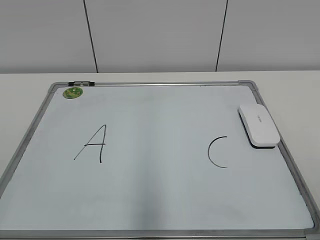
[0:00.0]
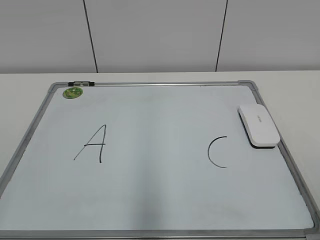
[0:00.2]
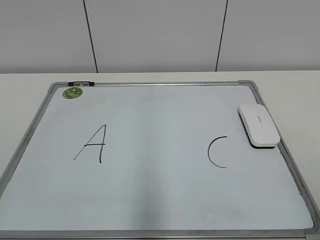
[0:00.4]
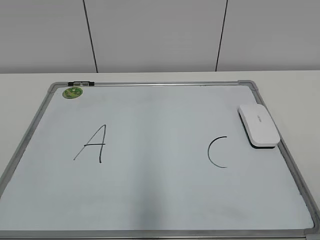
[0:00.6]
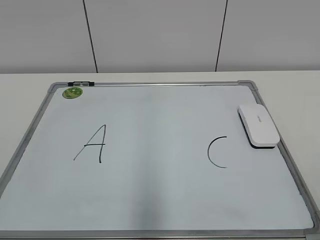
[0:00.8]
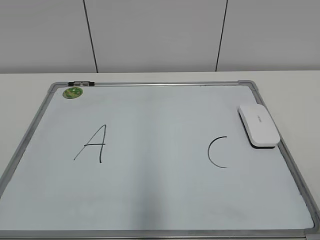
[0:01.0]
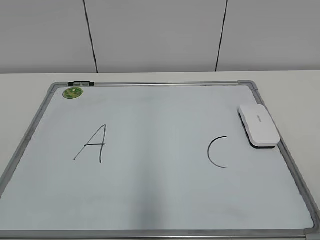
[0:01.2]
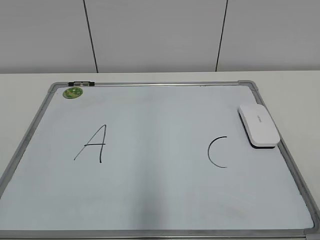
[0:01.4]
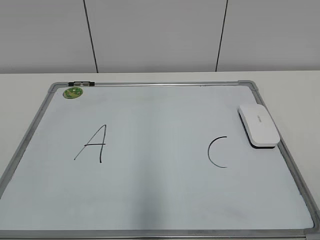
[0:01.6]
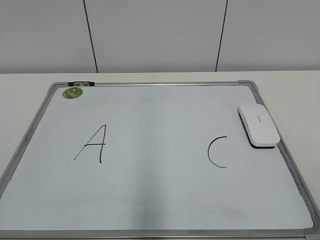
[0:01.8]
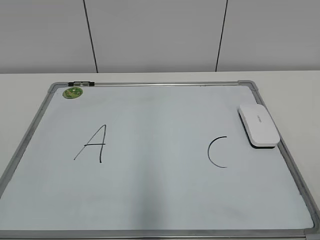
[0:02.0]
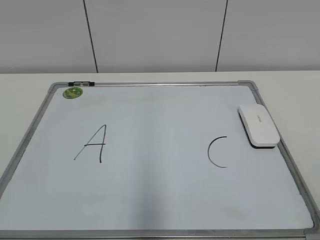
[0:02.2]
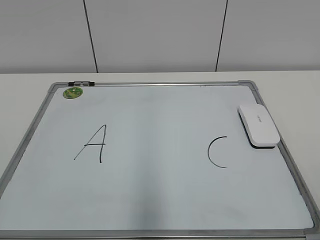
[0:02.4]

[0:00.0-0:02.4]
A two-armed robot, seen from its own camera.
Task of the whole recording: pick up the eraser on the blackboard and erase the letter "B".
0:01.2 to 0:02.4: The two grippers keep their place.

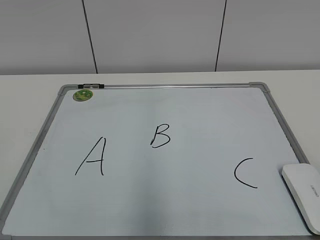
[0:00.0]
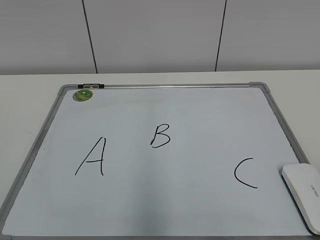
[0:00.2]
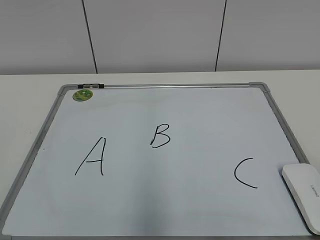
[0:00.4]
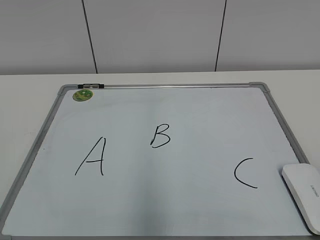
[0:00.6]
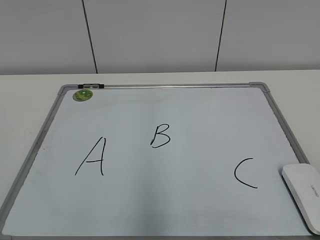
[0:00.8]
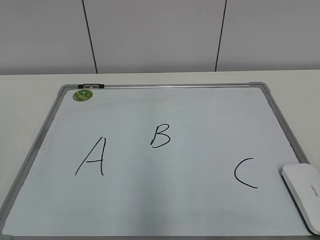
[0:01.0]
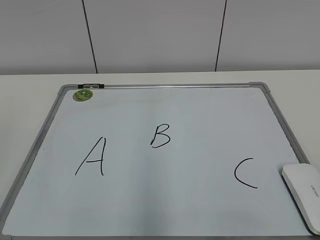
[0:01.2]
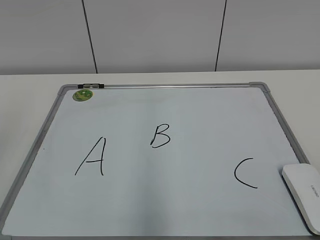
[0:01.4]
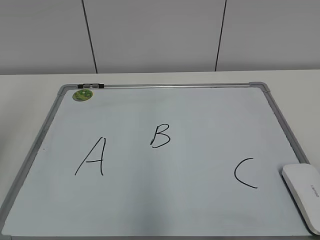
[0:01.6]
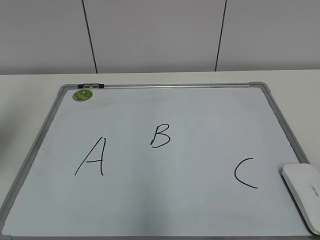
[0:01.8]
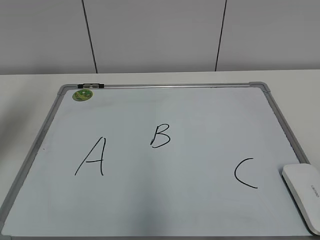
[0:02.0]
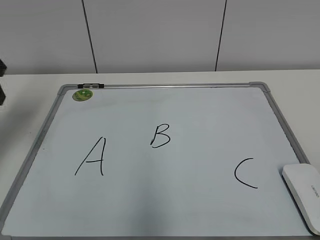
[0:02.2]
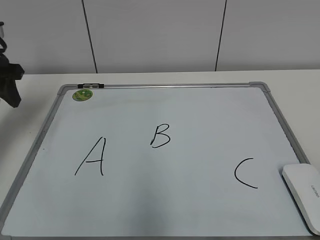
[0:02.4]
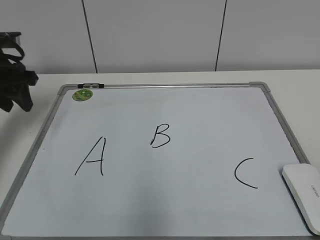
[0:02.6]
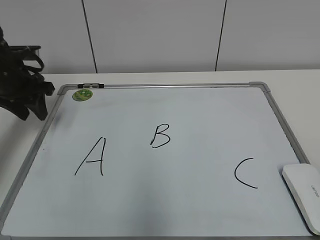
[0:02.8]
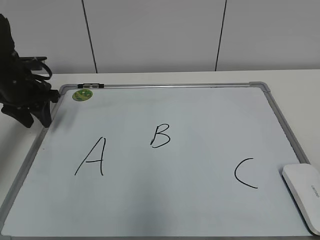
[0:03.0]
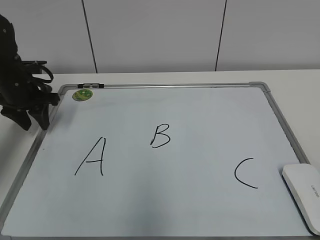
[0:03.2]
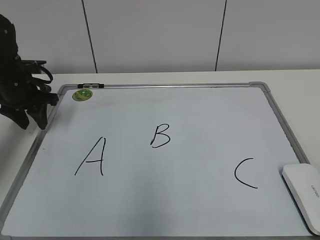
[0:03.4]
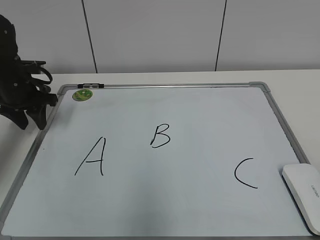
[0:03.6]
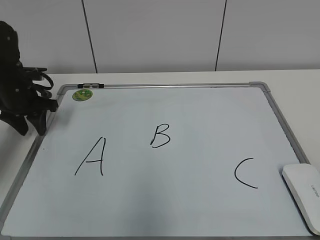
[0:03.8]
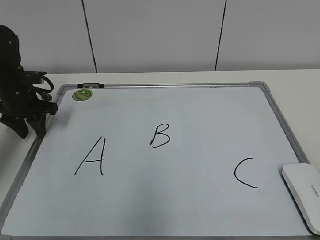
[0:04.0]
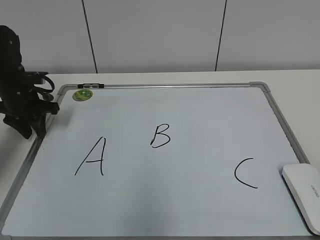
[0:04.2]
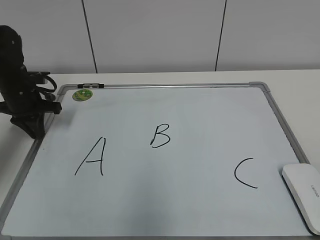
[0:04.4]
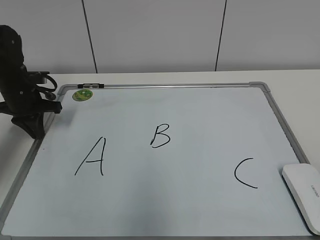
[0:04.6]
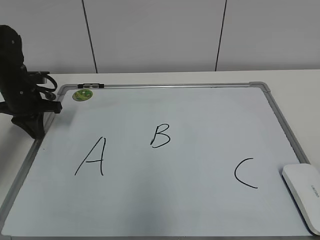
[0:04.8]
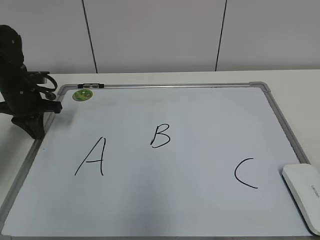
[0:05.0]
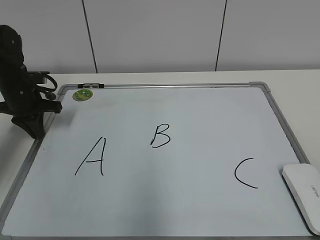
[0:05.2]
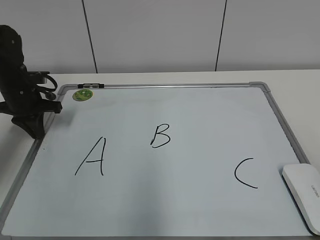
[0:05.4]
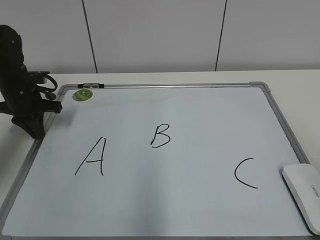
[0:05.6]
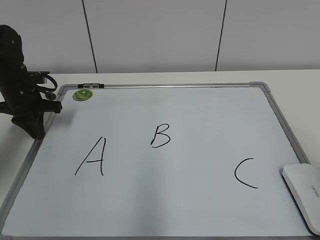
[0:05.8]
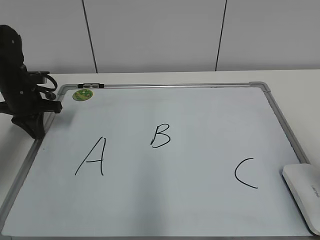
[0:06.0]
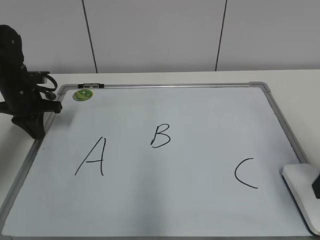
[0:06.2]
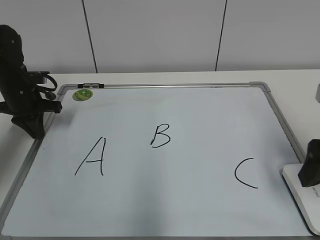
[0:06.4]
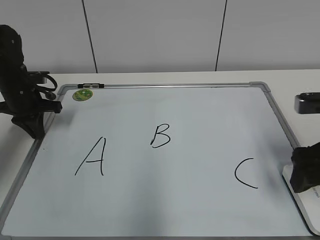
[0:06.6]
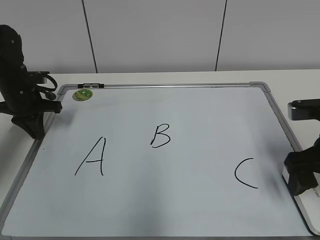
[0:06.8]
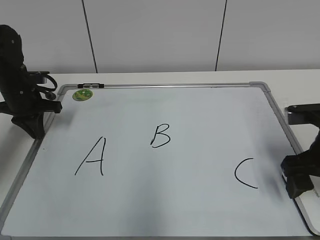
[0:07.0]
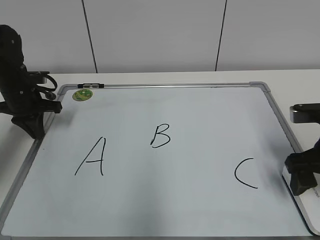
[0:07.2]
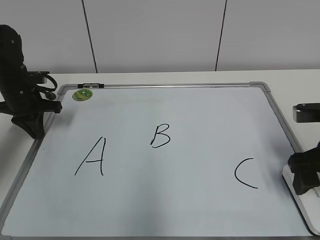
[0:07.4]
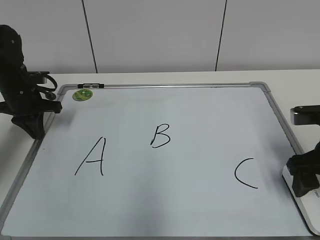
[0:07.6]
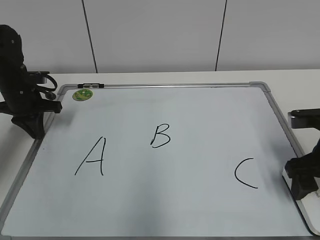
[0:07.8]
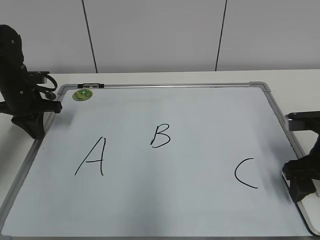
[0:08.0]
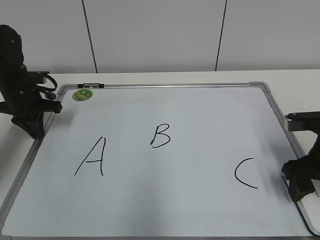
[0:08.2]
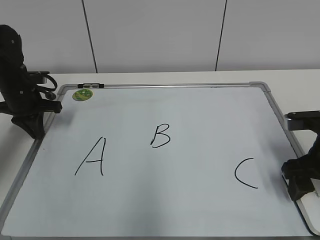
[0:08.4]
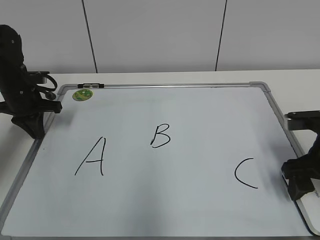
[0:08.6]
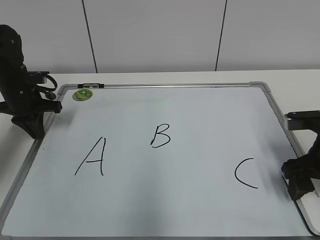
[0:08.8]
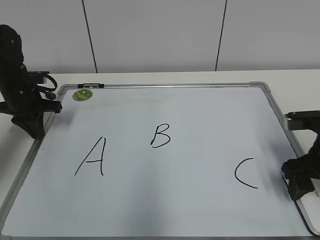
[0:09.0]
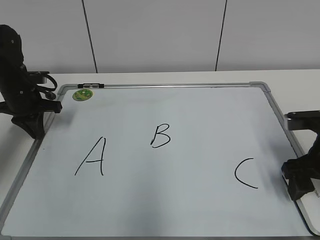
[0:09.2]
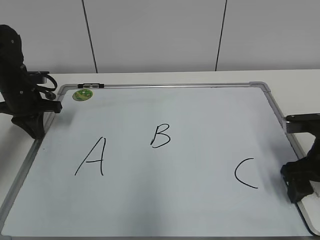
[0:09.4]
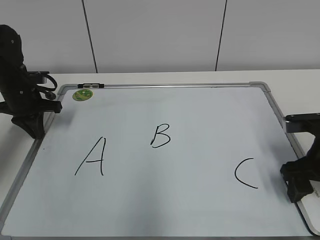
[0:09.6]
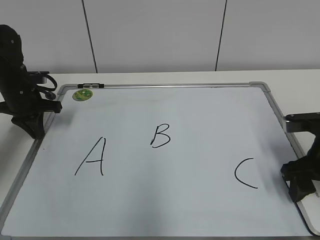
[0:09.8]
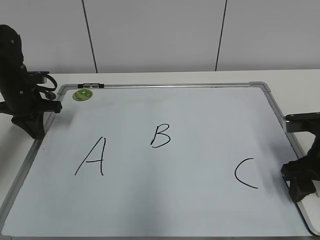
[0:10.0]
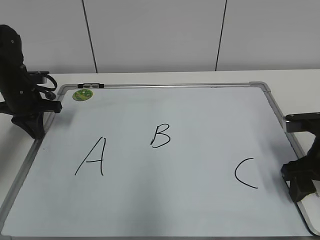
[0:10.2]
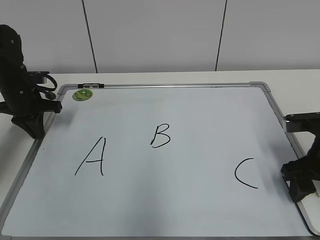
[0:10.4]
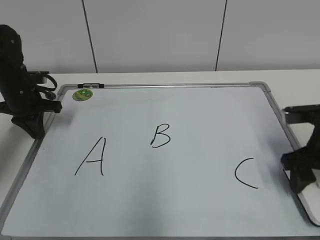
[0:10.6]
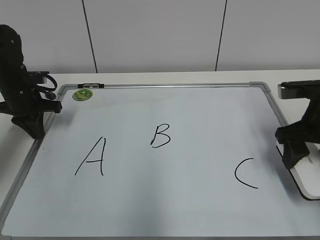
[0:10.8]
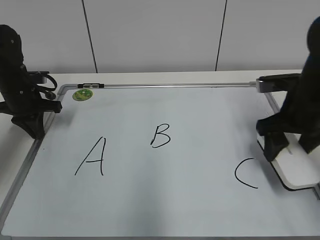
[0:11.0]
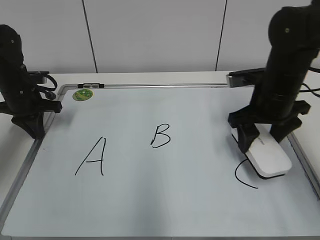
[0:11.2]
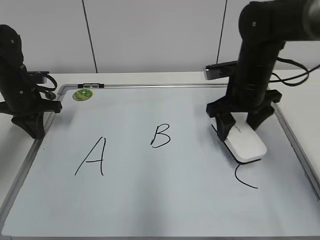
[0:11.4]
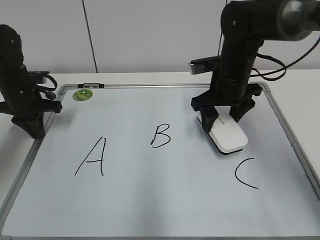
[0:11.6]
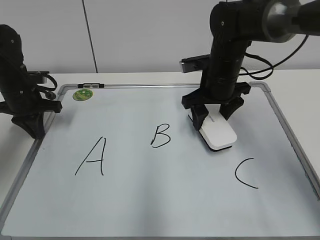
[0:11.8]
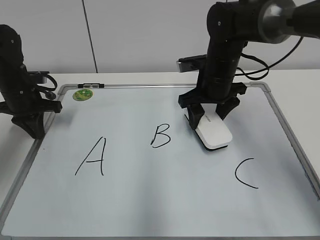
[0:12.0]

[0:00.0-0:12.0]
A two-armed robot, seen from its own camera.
Task of the whole recording: pick up the eraser on the blackboard and erase the letter "B".
Step, 0:00.0 to 0:04.4: Hold the drawing board steady with your left hand.
Step, 0:04.6 to 0:10.0: Grab the eraser with your right hand.
0:01.6 to 0:03.0: The left gripper moves forward and downward, approximately 30 cm.
0:03.0 to 0:04.4: The left gripper closes.
0:04.4 to 0:06.0: The right gripper heads forward, covering some 15 cm, and opens.
0:06.0 to 0:07.6: The right gripper travels forward and downward by about 15 cm.
0:07.6 to 0:09.0: The grippers move only a little.
0:09.0 to 0:10.4: Both grippers stay put.
0:10.4 to 0:12.0: The right gripper moves forward and to the left, some 20 cm.

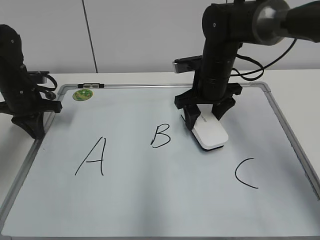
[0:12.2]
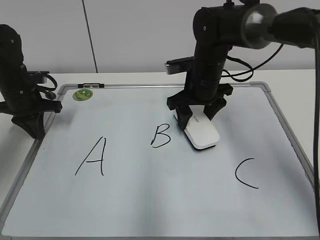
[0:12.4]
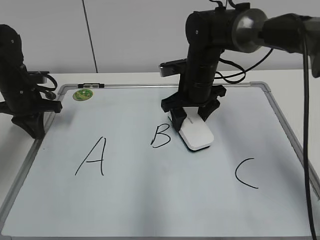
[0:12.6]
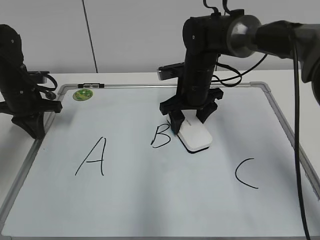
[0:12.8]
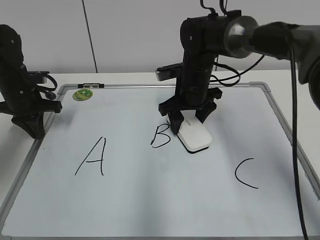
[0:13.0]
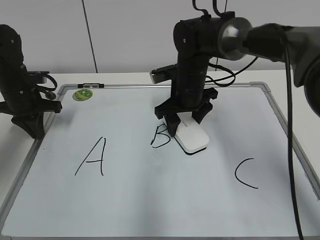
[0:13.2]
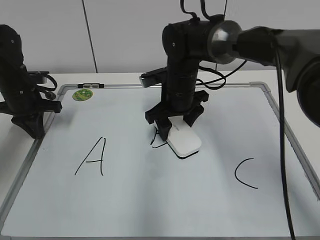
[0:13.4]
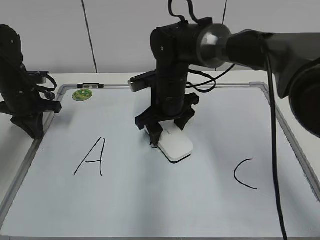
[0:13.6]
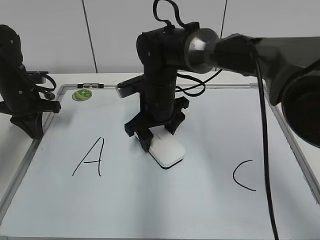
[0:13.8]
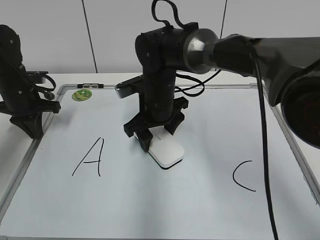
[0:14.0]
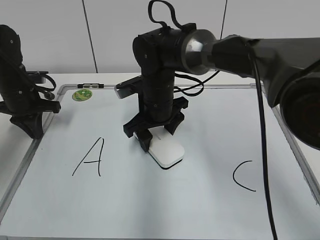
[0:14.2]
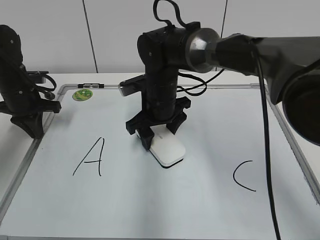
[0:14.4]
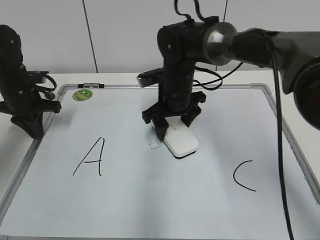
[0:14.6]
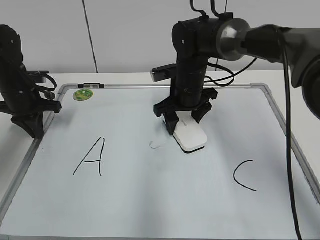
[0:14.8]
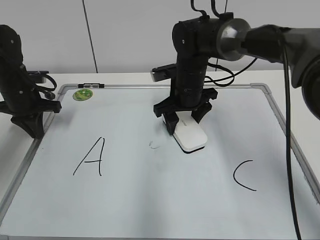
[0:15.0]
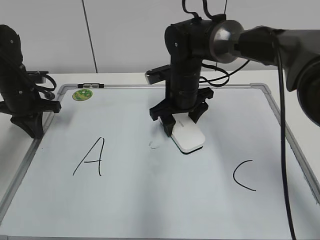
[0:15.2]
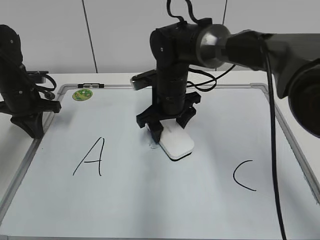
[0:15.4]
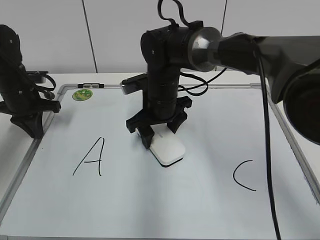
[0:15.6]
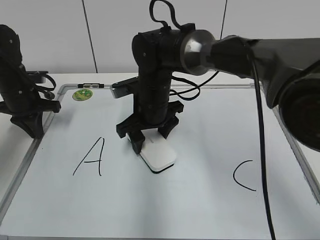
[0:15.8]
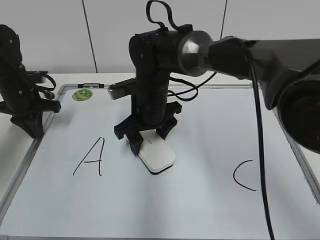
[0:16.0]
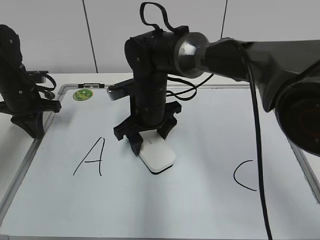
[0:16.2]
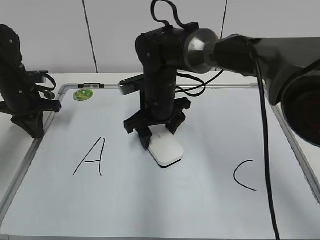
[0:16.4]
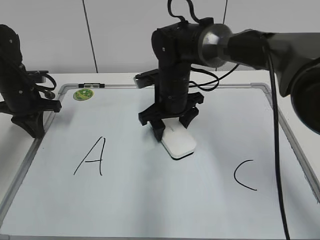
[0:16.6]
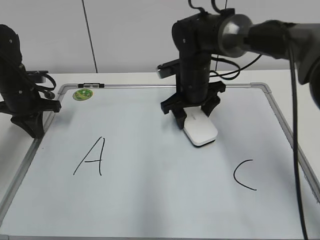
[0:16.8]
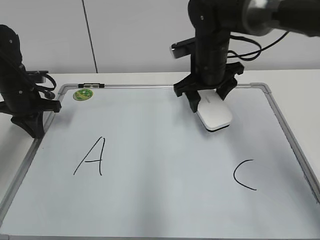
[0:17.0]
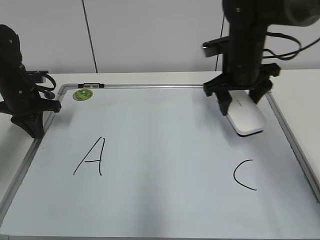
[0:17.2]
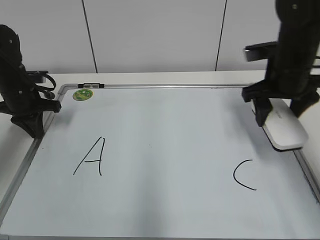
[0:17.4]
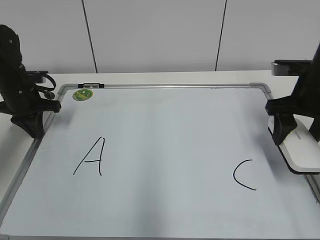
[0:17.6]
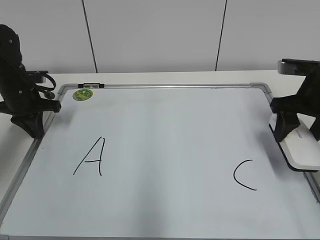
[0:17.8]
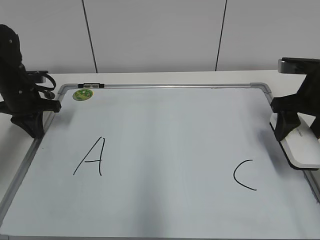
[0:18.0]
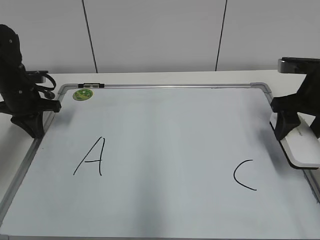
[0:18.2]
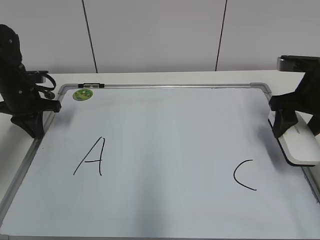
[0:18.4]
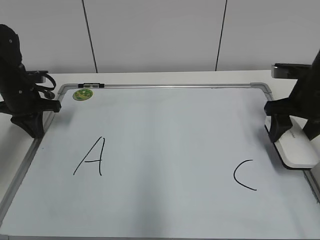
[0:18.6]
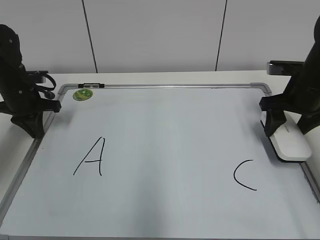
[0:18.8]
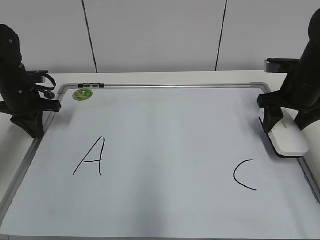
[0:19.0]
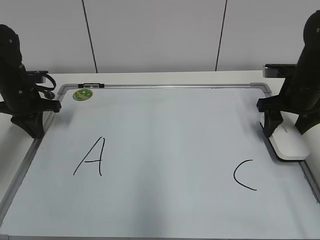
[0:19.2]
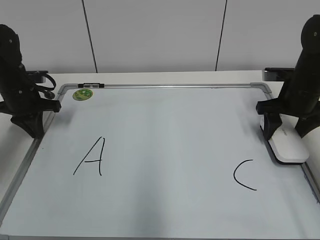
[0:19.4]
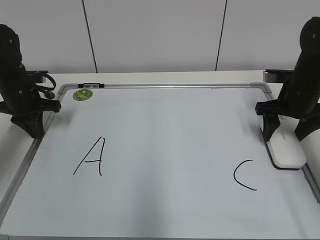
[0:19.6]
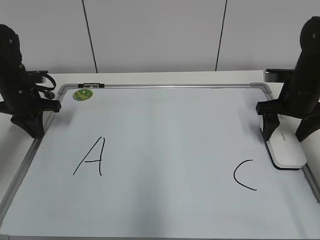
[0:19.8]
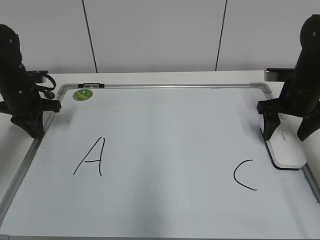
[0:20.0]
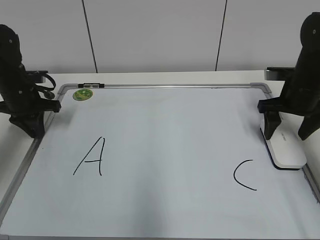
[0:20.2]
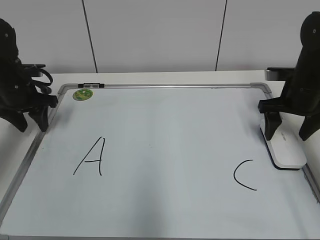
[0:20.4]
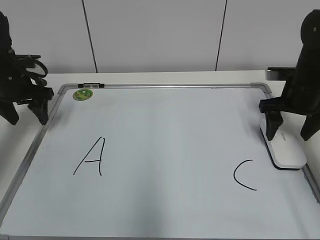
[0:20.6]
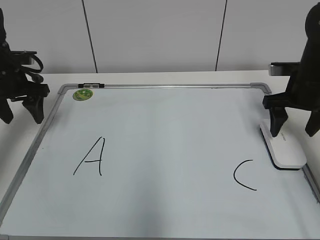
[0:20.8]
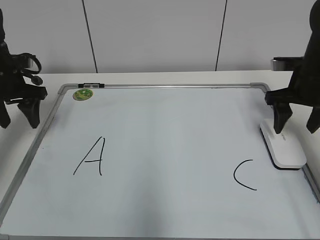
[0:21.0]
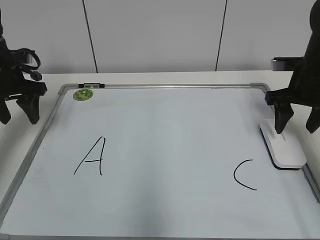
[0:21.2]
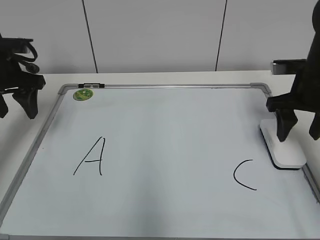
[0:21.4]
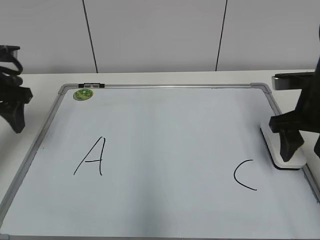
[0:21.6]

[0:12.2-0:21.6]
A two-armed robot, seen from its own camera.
Task of the whole recording: pick up the eraser on the blackboard and erase the letter "B".
Step, 0:12.2 to 0:16.6: Erase the letter B with your right hand.
Step, 0:16.8 to 0:19.4: Put down the eraser with your right hand.
0:12.2 to 0:13.8: The right gripper heads to the left, covering about 10 cm.
0:15.4 to 0:17.0: The right gripper moves to the right and upward, roughly 10 cm.
0:17.0 to 0:18.4: The right gripper shifts approximately 20 cm to the right and backward.
0:18.4 to 0:20.0: The right gripper changes place by roughly 5 cm, and opens up.
0:20.0 to 0:21.6: The right gripper is displaced backward by about 5 cm, and closes. Meanwhile the left gripper shifts some 10 cm upward and backward, and opens its fingers.
